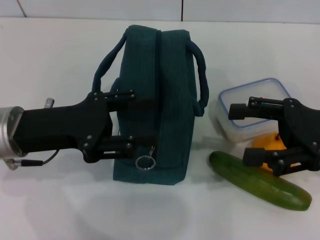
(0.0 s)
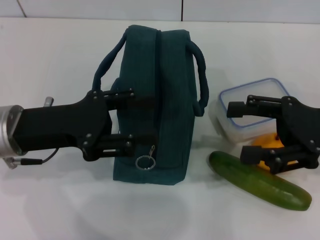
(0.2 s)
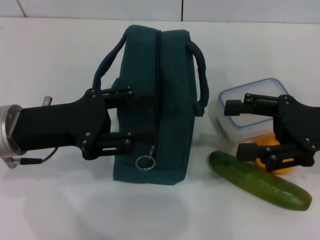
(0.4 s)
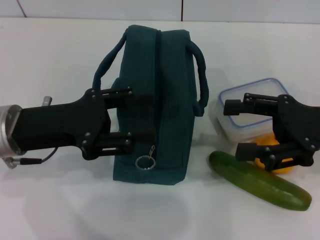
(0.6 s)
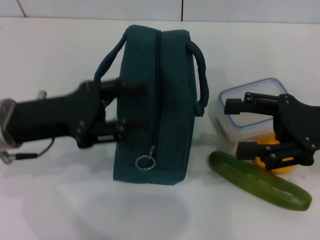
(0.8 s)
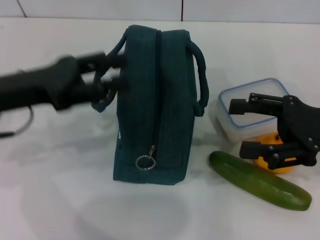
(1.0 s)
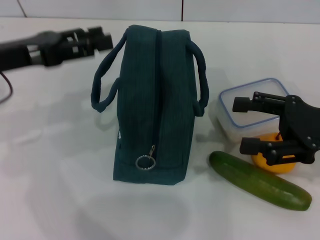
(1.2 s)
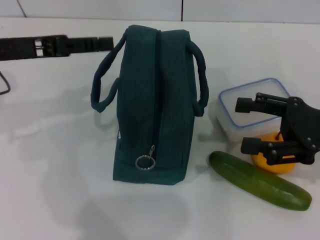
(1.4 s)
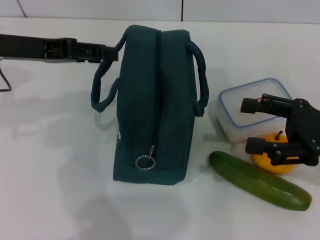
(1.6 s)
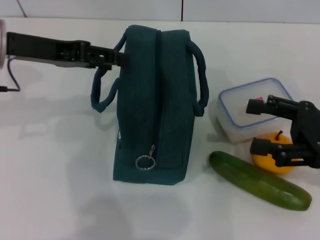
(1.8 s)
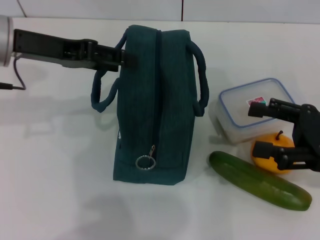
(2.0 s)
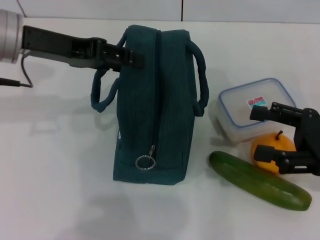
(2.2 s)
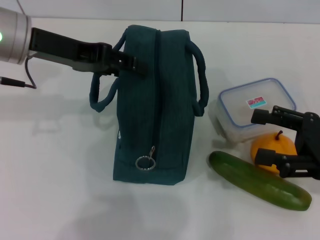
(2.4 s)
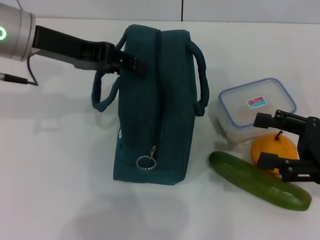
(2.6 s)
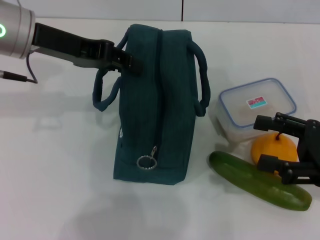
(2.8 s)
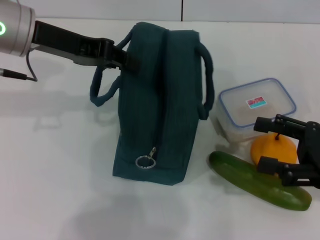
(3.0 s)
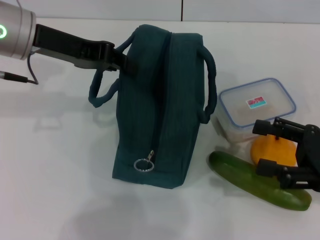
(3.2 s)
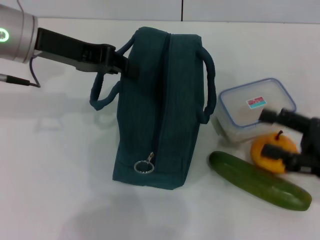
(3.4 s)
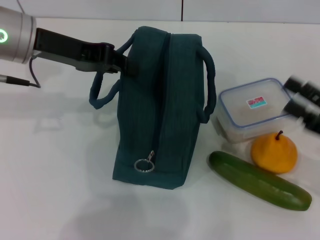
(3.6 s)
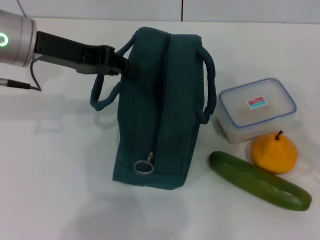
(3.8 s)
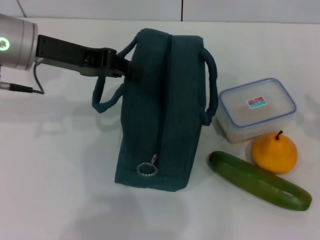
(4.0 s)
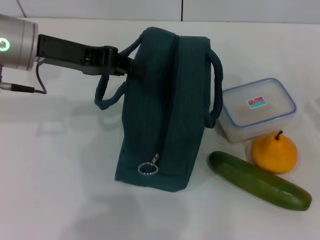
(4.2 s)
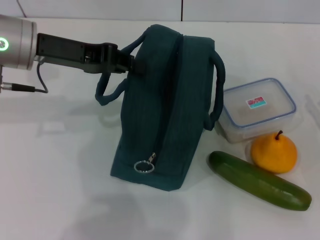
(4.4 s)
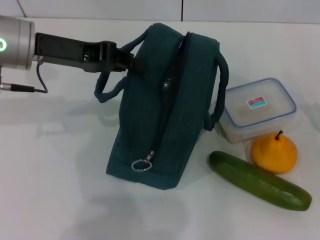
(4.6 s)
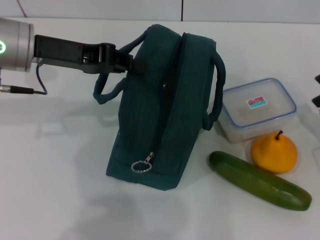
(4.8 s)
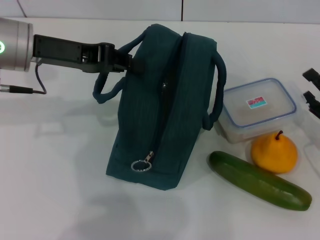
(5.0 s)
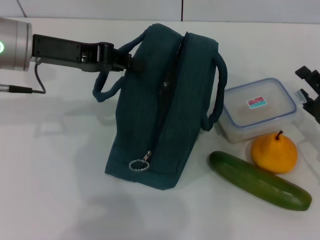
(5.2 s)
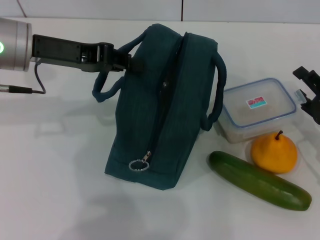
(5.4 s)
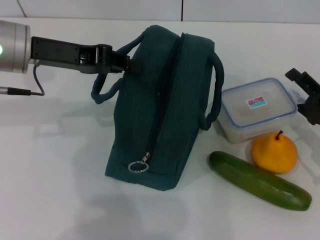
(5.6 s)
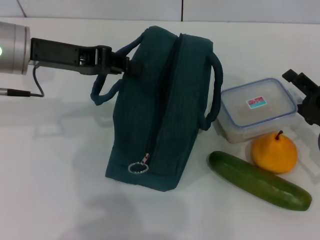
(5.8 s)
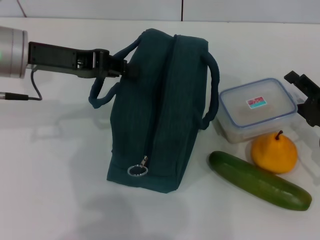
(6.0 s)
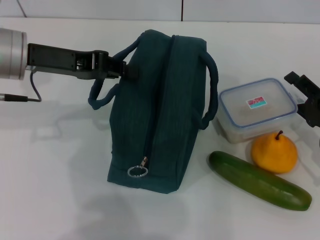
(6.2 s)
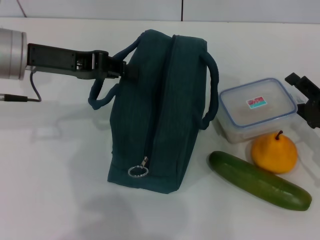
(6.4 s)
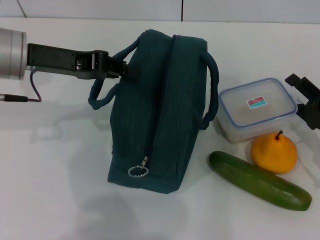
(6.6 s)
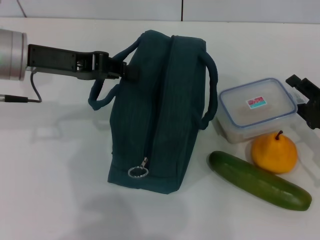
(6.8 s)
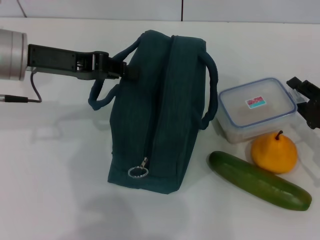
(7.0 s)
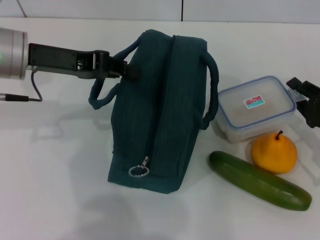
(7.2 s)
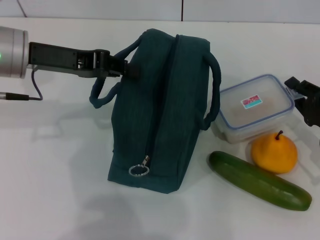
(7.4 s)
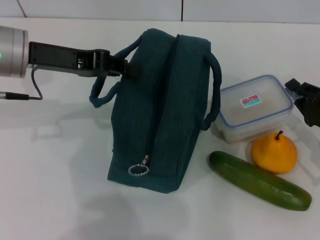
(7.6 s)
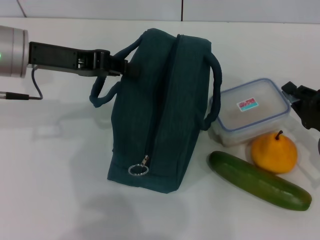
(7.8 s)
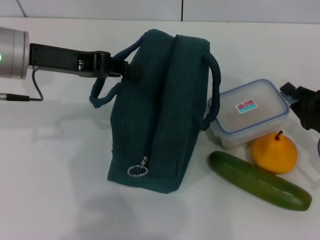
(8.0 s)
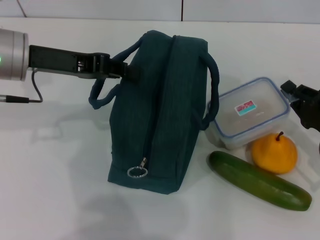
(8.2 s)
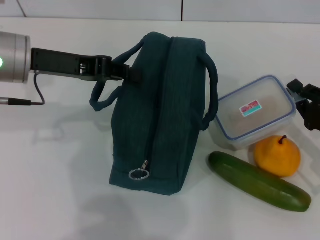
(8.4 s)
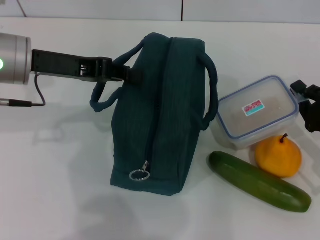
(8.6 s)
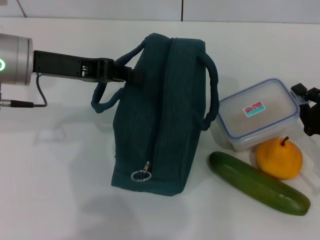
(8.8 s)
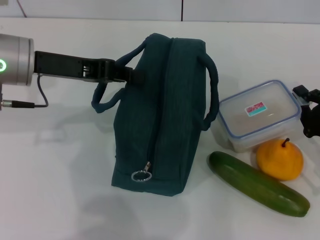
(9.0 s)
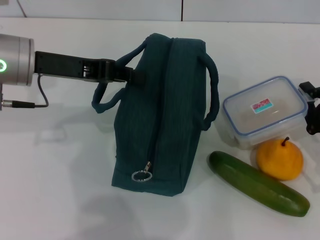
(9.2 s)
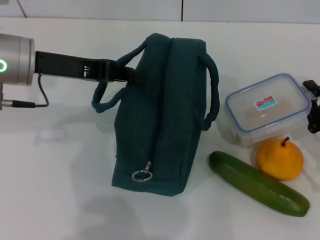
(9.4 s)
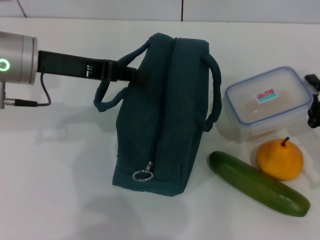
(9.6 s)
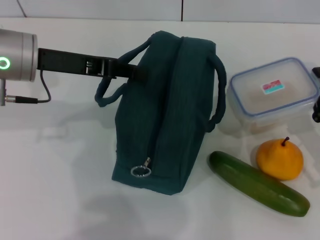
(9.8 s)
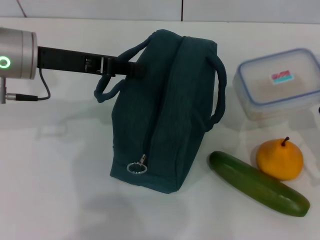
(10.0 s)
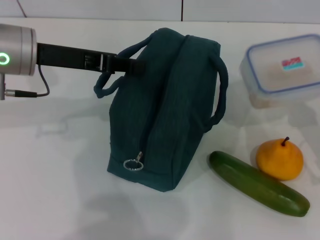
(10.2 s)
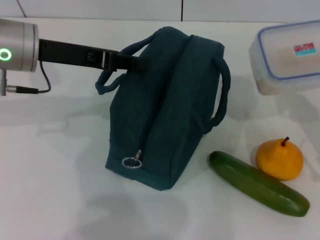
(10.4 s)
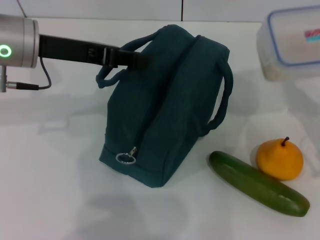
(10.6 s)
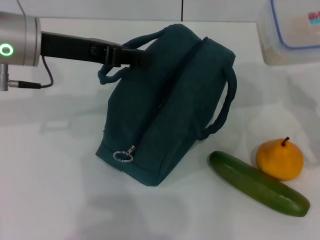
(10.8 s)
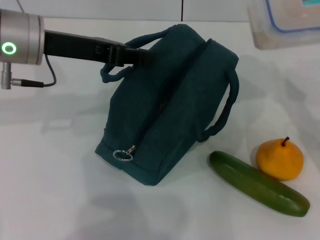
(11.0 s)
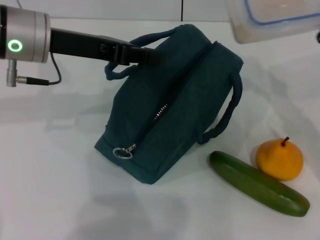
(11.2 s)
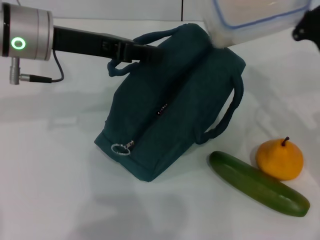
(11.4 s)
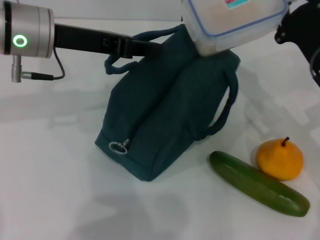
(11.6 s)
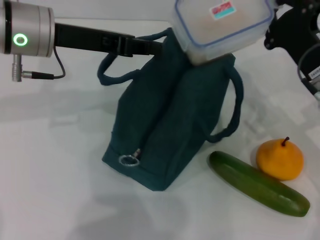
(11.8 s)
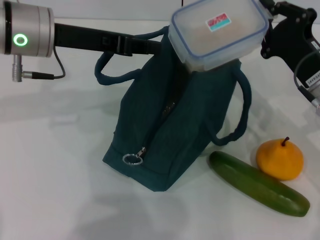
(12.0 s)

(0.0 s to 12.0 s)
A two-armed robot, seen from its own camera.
Step, 0.0 s - 3.4 s: Hold the lunch bag with your left hand.
Step, 3.6 s - 9.6 s: Pick up the lunch box with your right hand.
0.0 s - 1.6 s: The left gripper is displaced upward and forward by some 10 cm.
1.6 s - 3.0 s: The left gripper changes place by approximately 5 cm, and closes.
3.0 s - 4.4 s: The left gripper closes up. The right gripper is displaced downward and to the right by roughly 10 cm.
4.4 s - 6.0 s: The right gripper is displaced to the left by about 5 cm.
6.0 s - 7.6 s: The right gripper closes.
10.4 s - 12.0 s: The right gripper shifts roughly 10 cm to the left and forward.

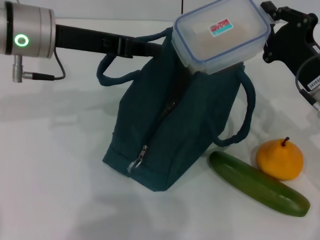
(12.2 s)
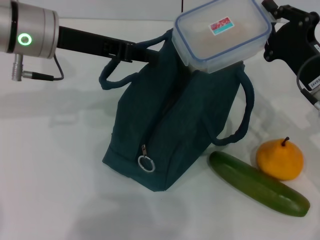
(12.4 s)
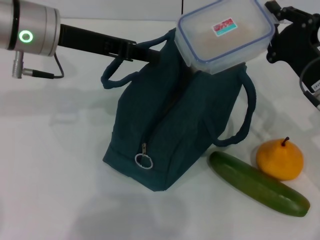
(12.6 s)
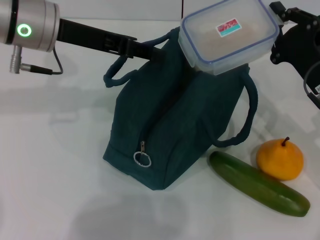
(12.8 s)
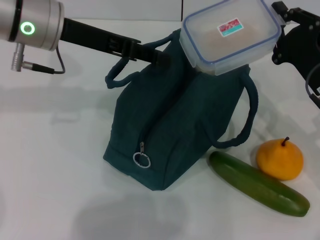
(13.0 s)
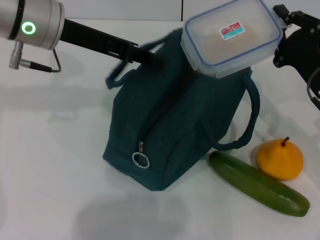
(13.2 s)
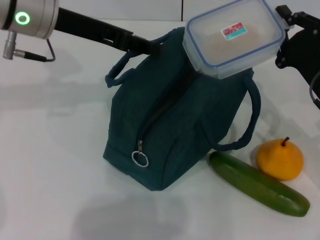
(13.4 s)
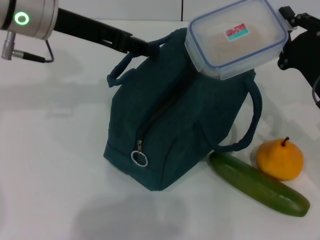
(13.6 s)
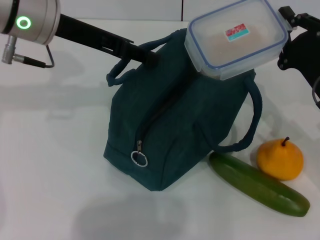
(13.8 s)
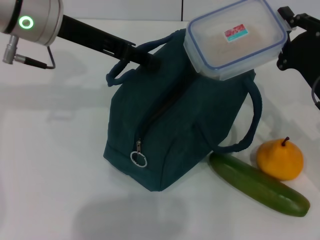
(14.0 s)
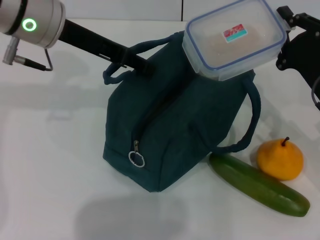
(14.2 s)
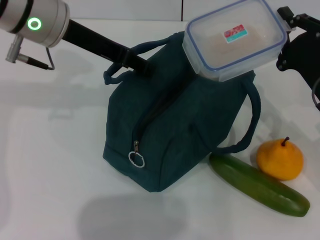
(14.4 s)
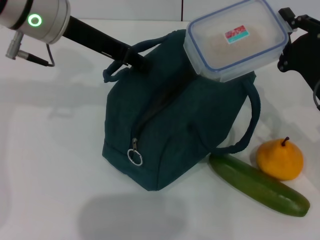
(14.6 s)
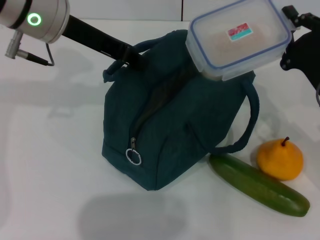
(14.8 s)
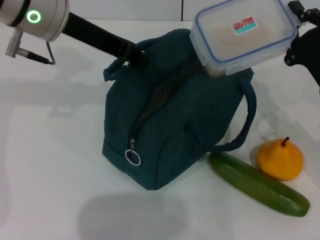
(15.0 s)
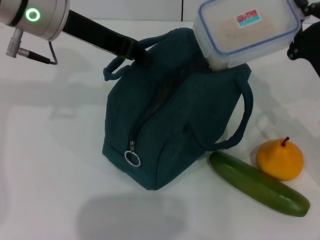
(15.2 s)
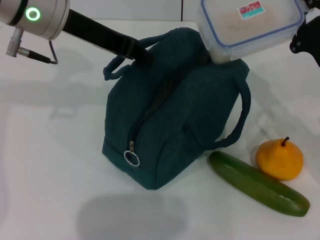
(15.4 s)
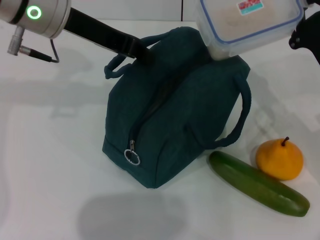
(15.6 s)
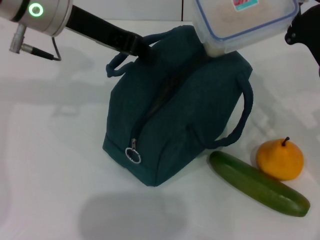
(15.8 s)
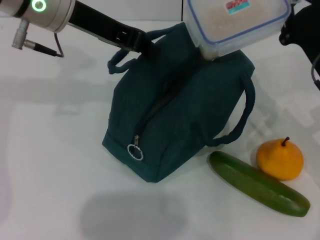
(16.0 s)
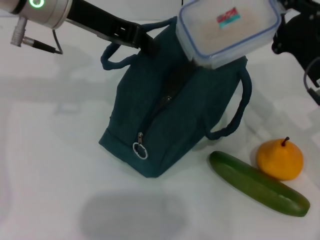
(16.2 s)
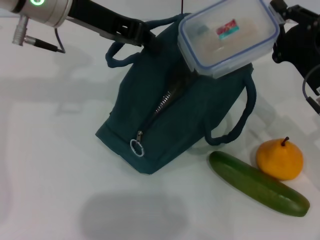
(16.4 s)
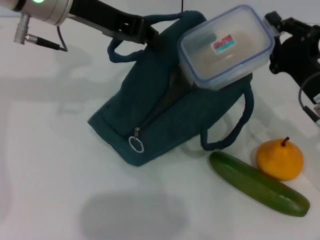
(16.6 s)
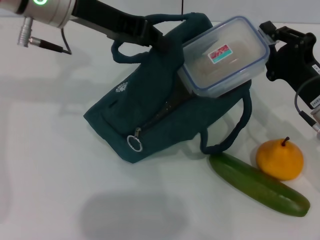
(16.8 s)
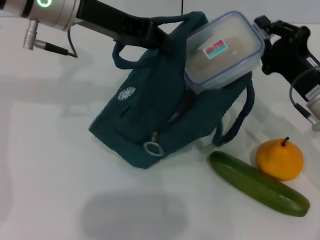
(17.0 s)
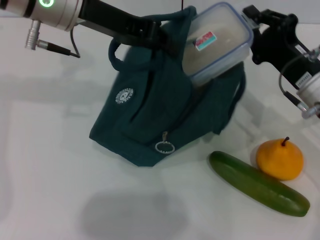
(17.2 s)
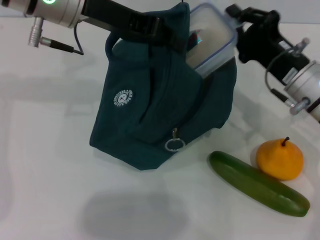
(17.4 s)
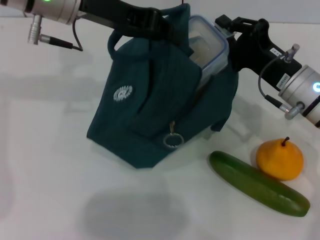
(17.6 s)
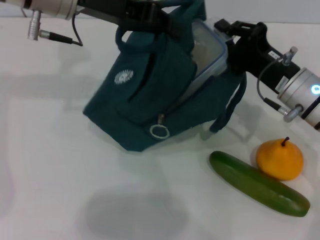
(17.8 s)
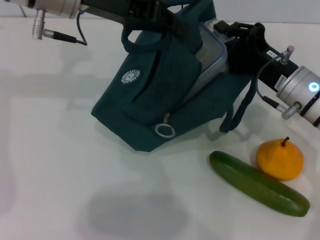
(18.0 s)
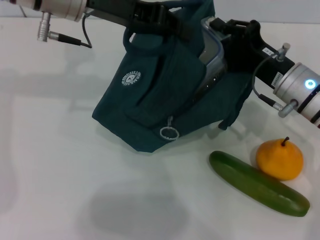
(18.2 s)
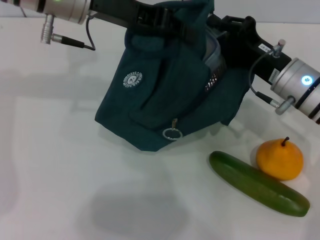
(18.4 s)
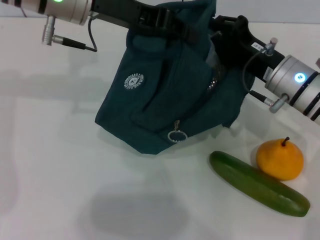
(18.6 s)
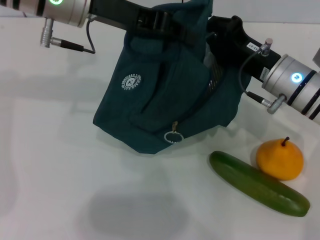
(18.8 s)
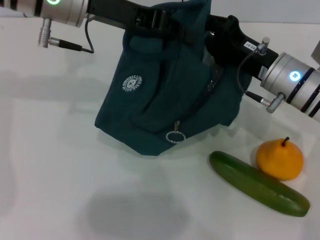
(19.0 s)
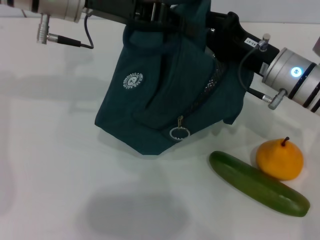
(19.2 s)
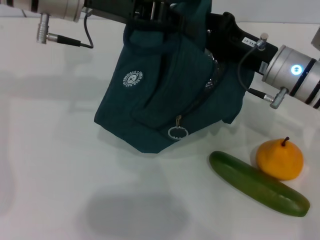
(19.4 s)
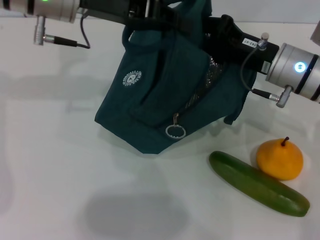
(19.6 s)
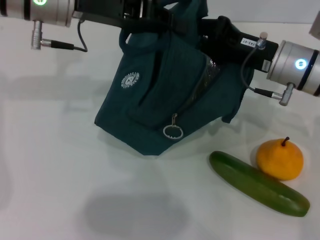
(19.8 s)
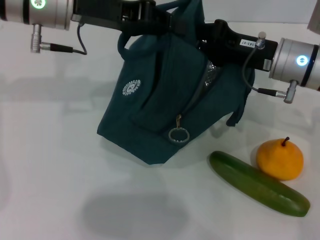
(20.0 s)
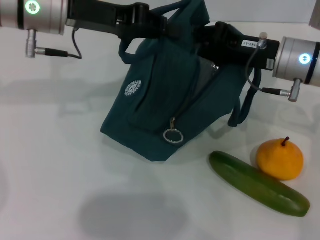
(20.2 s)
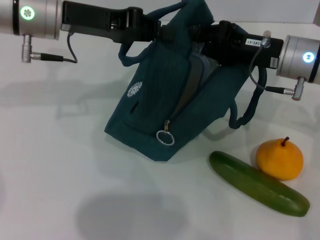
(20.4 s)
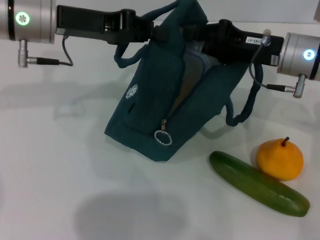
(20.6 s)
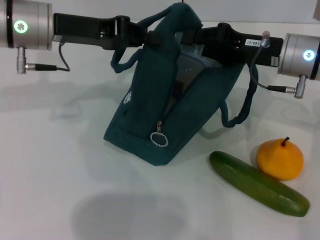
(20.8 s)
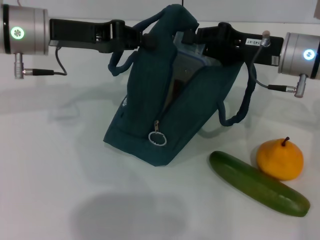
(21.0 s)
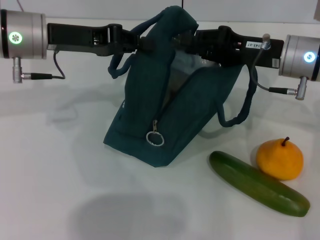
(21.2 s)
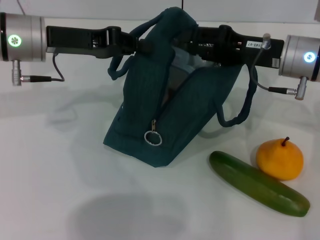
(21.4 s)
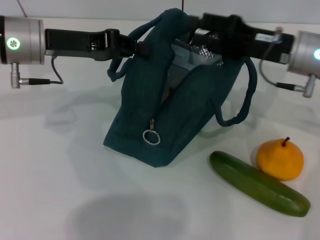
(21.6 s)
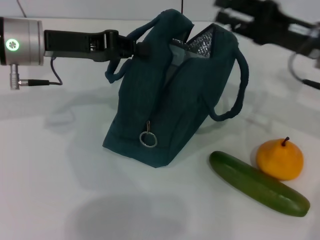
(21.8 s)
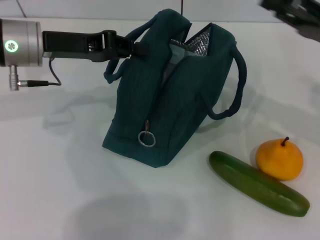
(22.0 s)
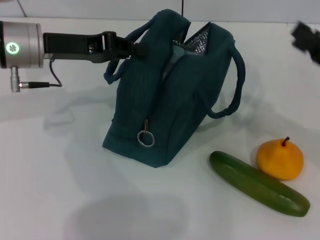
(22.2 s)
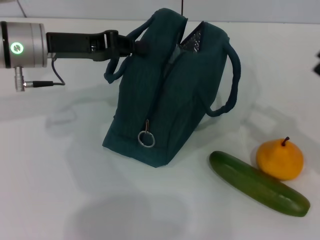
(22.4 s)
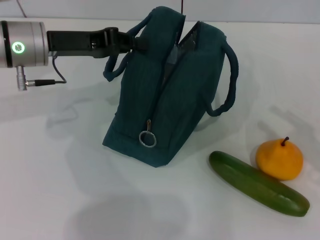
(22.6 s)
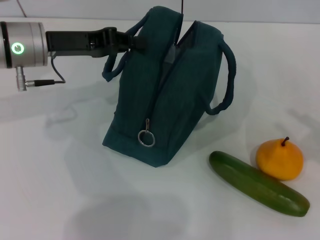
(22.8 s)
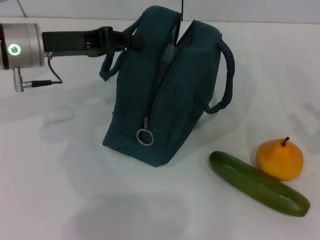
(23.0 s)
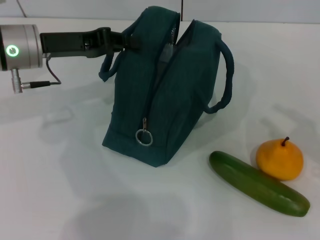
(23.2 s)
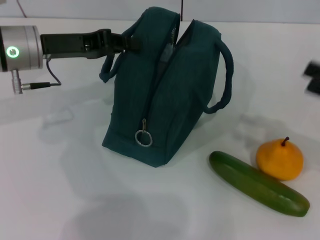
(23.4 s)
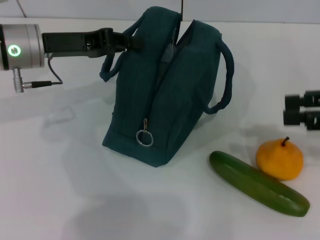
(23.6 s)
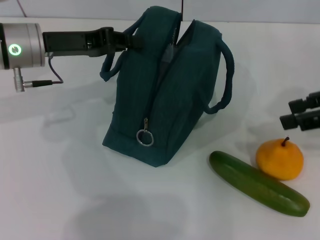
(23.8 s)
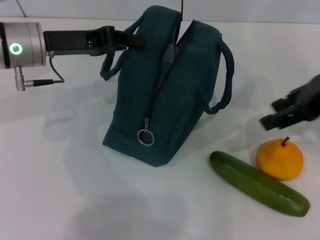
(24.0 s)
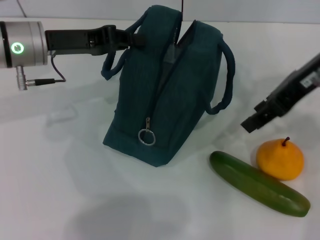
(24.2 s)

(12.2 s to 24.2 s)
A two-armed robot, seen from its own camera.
Step, 12.2 s - 21.4 s: Place the lunch box into the lunch bag with your right hand.
12.2 s - 13.8 s: The left gripper opens up.
13.8 s - 15.2 s: The left gripper closes up.
16.6 s - 18.2 s: The right gripper changes place by some 5 cm.
19.8 s - 21.2 s: The left gripper moves some 5 cm.
21.2 s - 22.6 s: The right gripper shifts roughly 25 cm backward and to the right, and opens its fingers.
22.6 s - 24.2 s: The right gripper moves upward, to the left and forward, approximately 25 cm.
